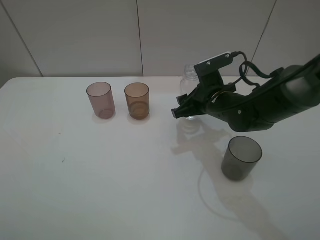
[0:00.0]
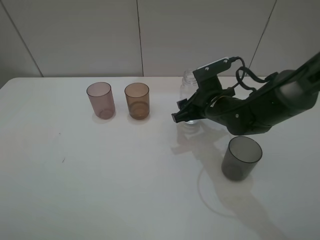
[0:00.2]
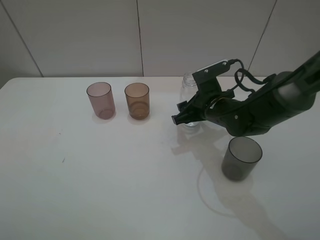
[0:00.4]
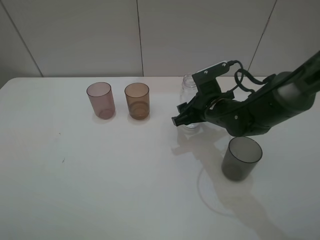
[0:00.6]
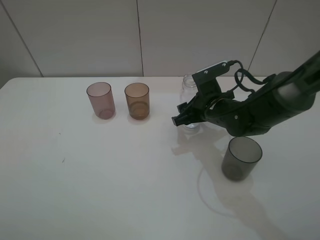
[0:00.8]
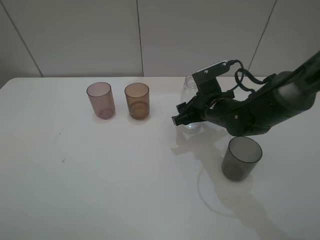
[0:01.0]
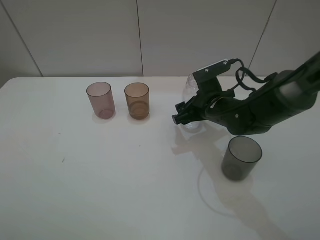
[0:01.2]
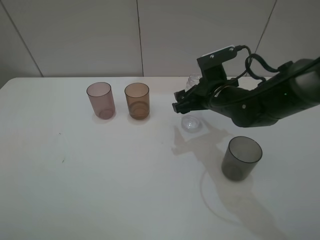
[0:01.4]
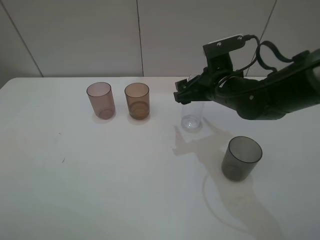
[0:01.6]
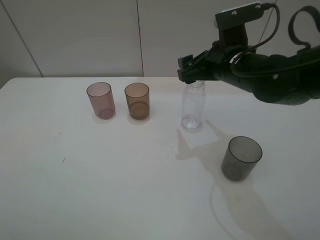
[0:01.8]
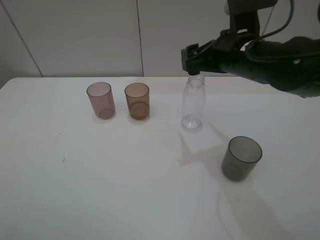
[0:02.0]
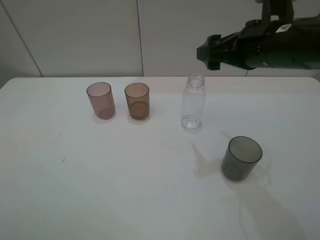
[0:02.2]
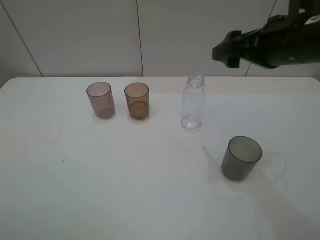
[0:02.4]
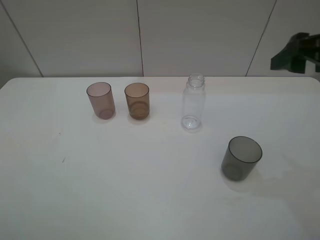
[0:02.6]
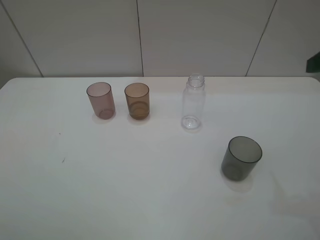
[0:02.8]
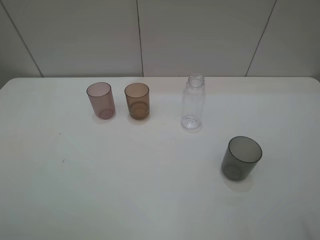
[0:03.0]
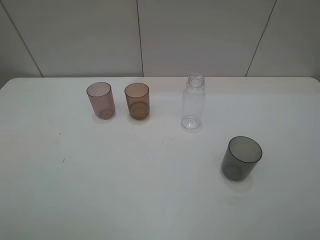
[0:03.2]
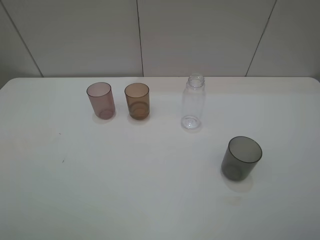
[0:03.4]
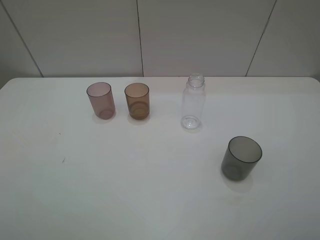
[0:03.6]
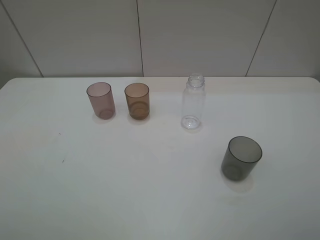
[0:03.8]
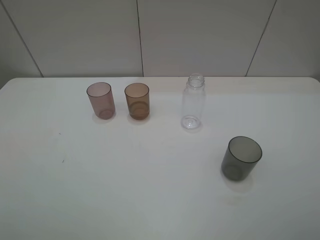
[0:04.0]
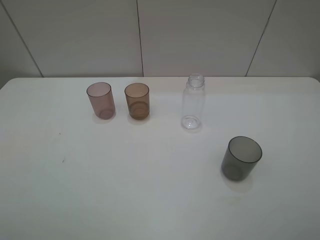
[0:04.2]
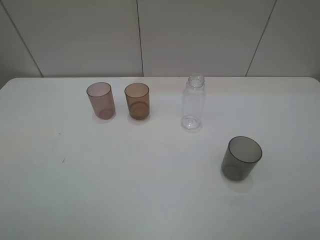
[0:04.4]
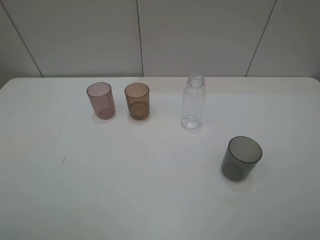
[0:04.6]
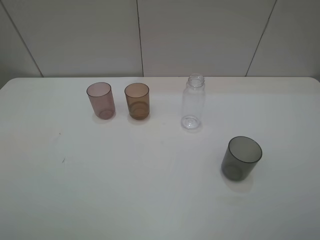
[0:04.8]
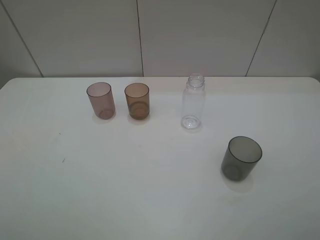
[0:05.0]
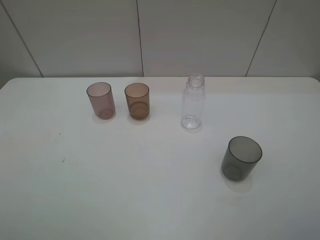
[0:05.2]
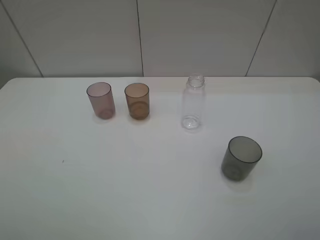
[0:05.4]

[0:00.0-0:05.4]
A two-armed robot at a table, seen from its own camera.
Task of the whole recording: pick up the bottle filled with water and pour water into the middle cup of the three cups.
0:00.0 to 0:01.4: The right gripper opens up.
0:01.4 to 0:02.8: The right gripper goes some 30 cm upward, to the right and backward.
0:04.0 to 0:05.4: The two grippers keep their place.

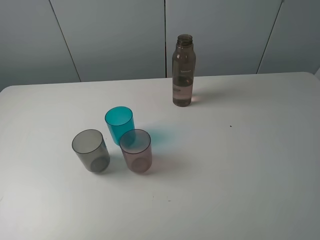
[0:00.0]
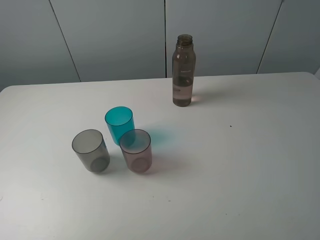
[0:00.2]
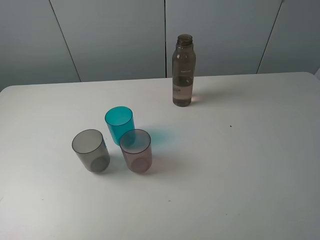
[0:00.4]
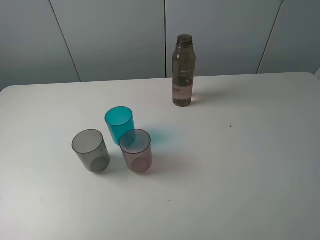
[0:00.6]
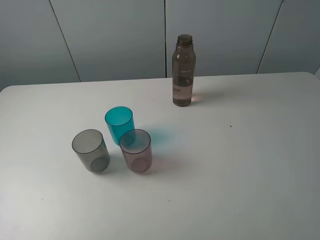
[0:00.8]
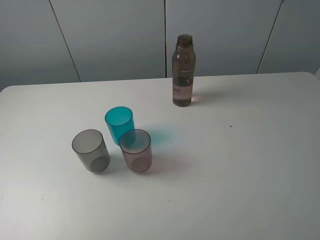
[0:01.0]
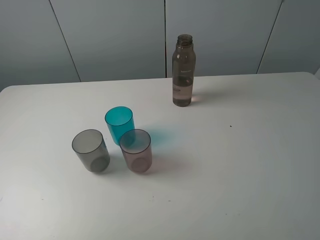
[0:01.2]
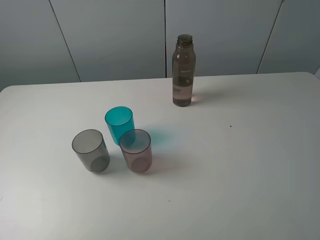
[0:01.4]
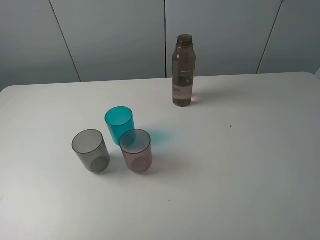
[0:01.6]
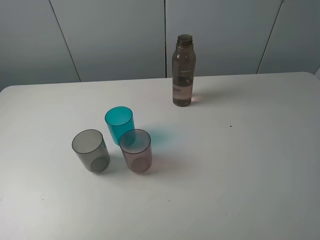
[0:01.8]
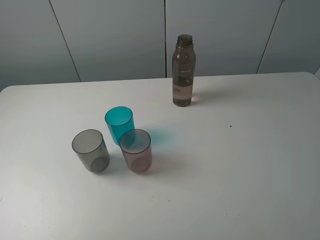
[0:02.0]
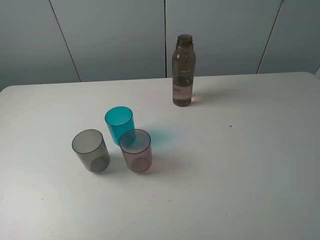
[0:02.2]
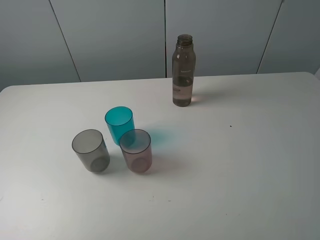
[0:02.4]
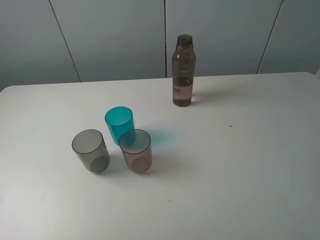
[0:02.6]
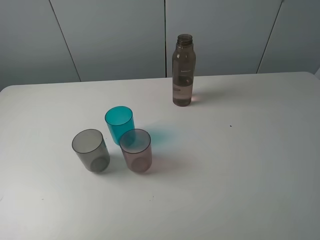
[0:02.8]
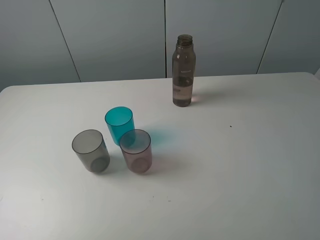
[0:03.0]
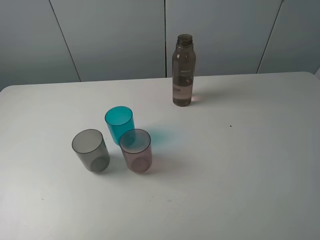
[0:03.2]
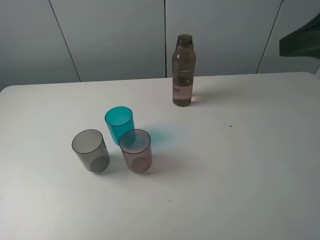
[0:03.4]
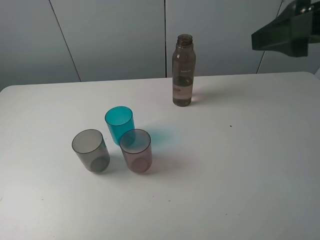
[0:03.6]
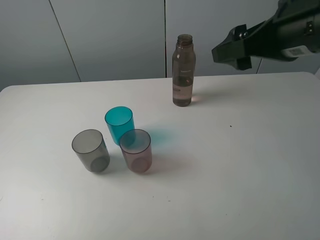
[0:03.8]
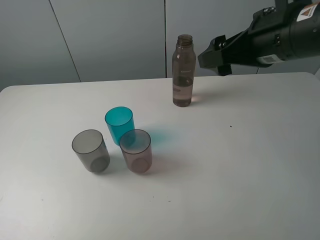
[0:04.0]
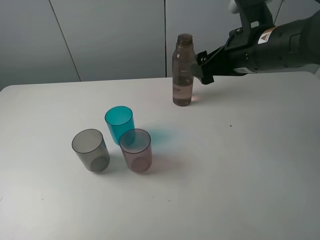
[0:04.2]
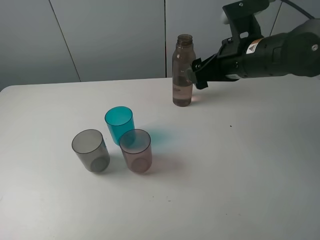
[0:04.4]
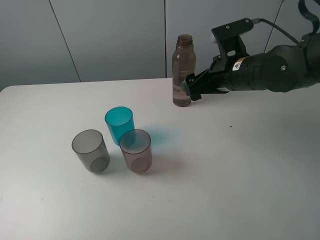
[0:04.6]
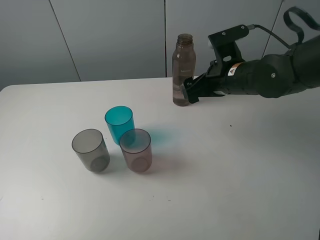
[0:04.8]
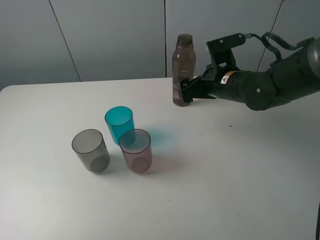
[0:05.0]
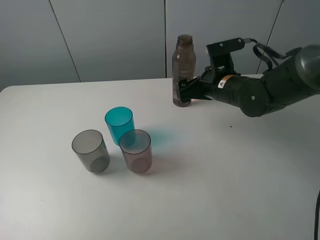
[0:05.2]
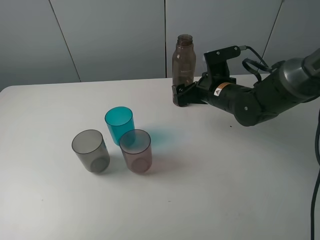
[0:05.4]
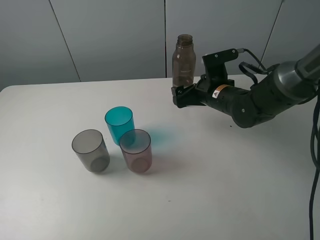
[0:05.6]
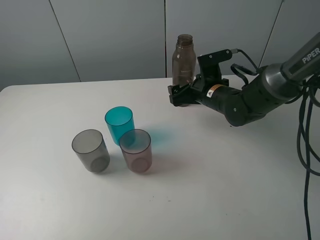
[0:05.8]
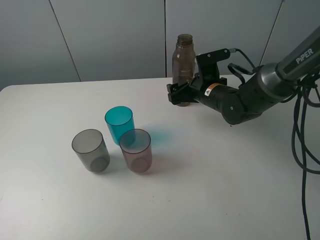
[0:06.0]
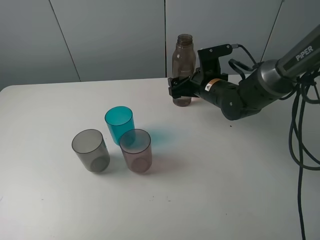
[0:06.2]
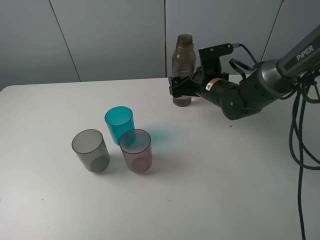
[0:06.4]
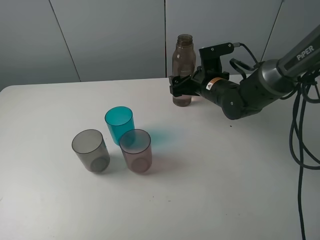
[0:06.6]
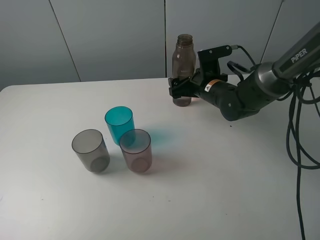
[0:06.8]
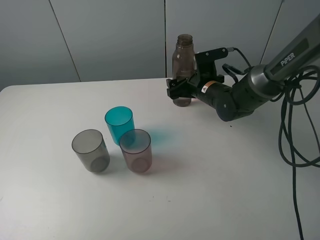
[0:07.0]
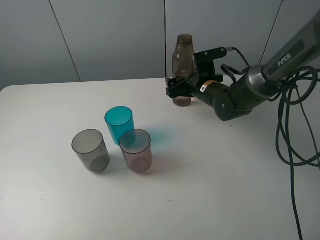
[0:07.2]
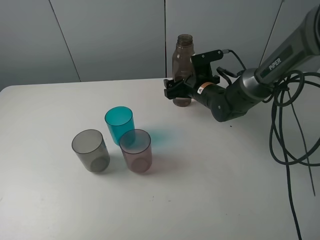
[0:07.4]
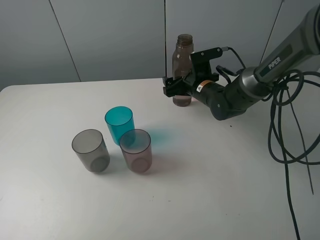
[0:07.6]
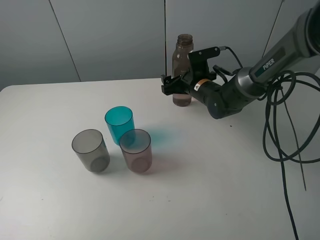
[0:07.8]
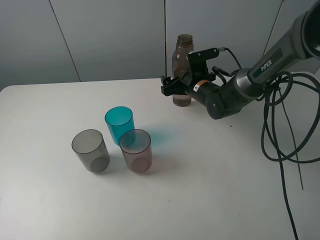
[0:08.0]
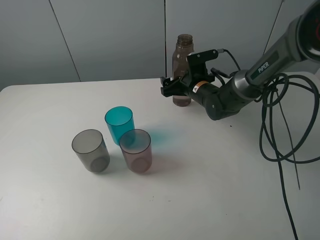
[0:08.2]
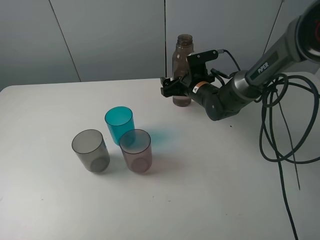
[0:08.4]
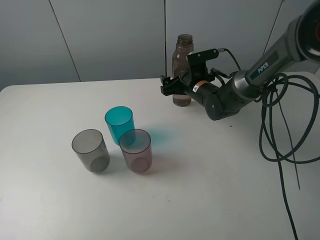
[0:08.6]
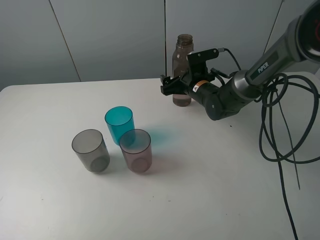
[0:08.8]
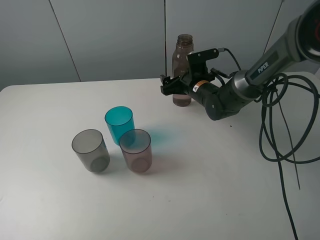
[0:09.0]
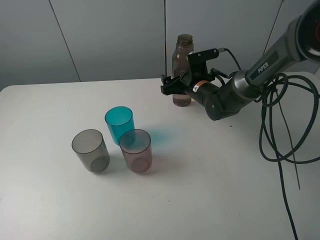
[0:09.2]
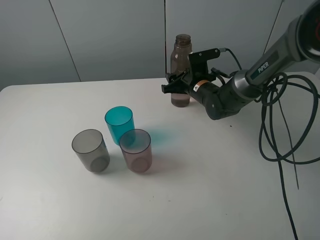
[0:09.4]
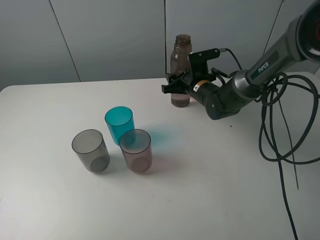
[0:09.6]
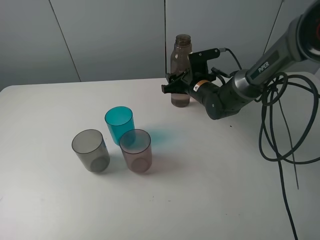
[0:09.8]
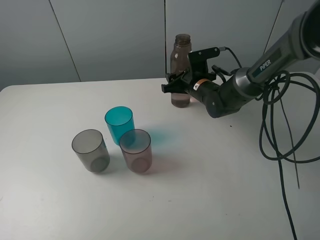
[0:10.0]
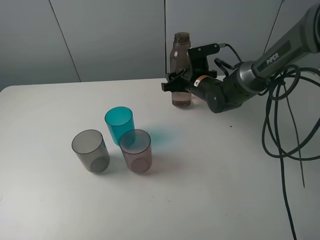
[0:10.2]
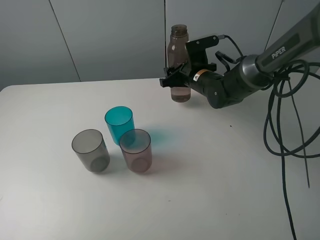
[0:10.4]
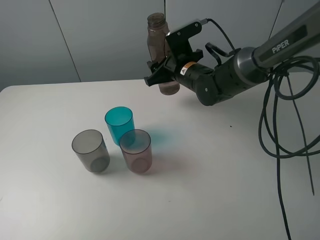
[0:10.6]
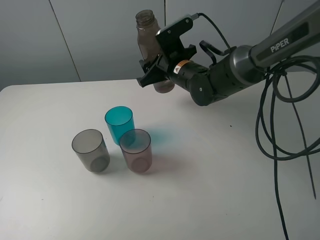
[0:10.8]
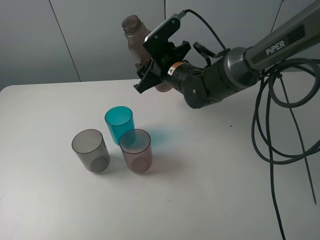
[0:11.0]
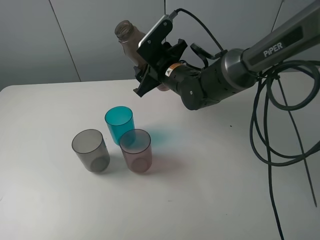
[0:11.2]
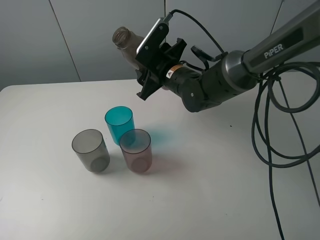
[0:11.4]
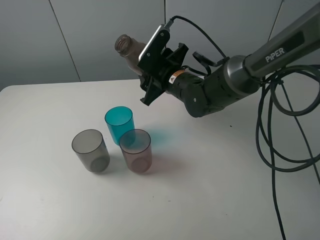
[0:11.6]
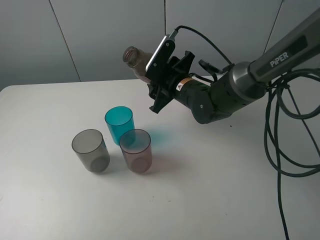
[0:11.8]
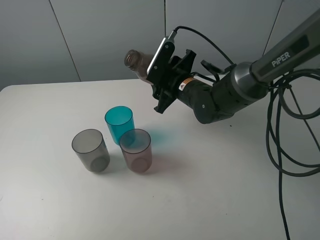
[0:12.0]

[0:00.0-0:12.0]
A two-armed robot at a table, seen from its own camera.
Task of the whole recording: pick up the bottle filled with water and pour water into the middle cup of the three cups.
Step, 0:00.0 to 0:09.4: Grasp the brown bottle with the right gripper.
0:00.0 to 0:01.6: The two grippers keep their place.
0:03.0 to 0:04.4: The right gripper moves forward, downward and to the left, roughly 25 cm.
0:04.4 to 0:06.0: The right gripper is displaced downward and forward by roughly 15 cm.
0:06.0 to 0:09.0: There are only small adjustments of the grippers.
0:09.0 to 0:10.4: The right gripper closes up.
0:10.4 to 0:12.0: The right gripper is displaced backward by approximately 5 cm.

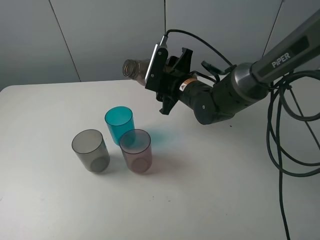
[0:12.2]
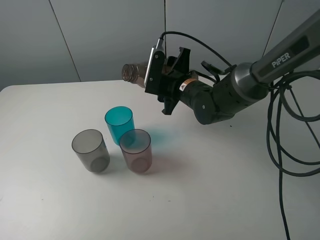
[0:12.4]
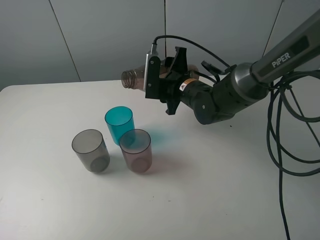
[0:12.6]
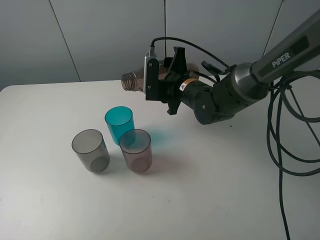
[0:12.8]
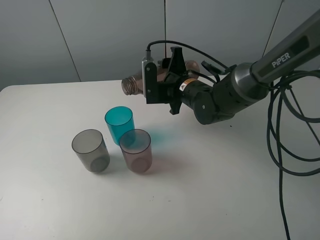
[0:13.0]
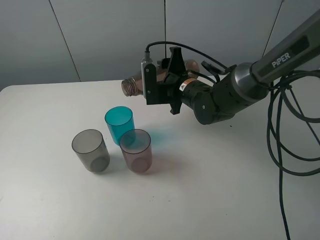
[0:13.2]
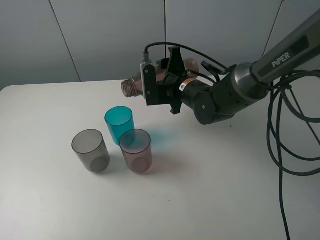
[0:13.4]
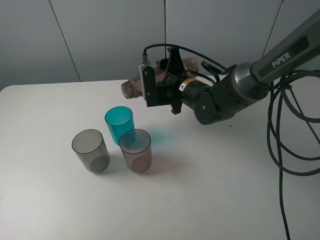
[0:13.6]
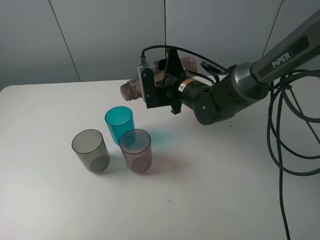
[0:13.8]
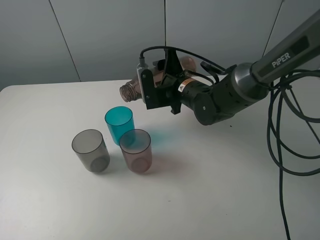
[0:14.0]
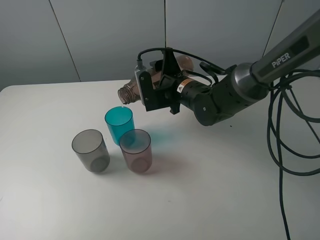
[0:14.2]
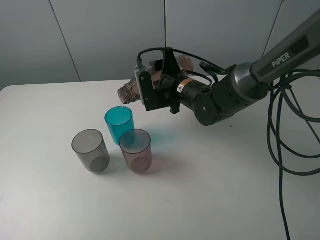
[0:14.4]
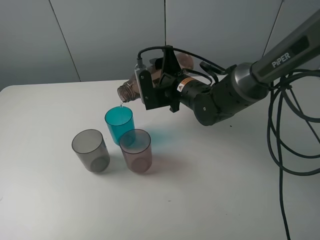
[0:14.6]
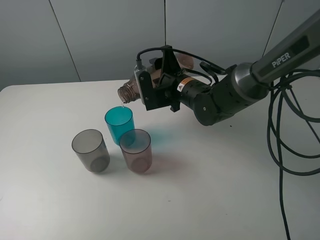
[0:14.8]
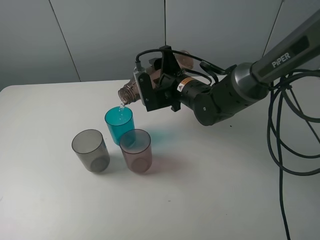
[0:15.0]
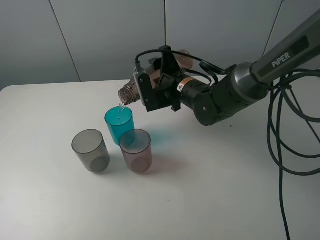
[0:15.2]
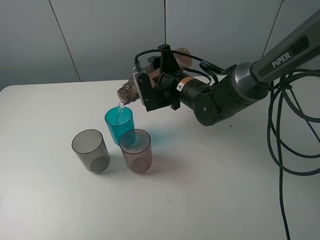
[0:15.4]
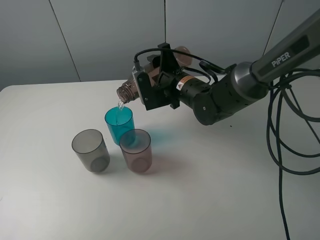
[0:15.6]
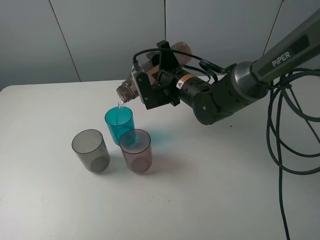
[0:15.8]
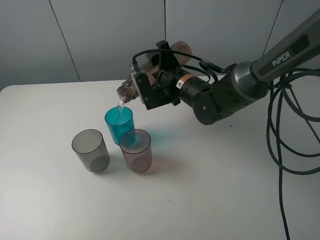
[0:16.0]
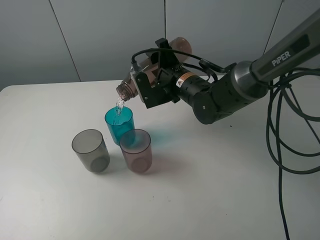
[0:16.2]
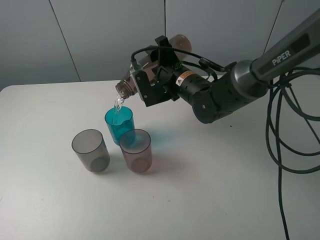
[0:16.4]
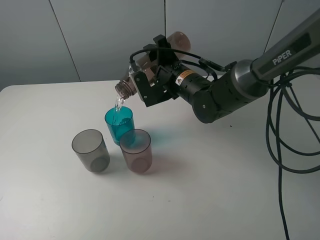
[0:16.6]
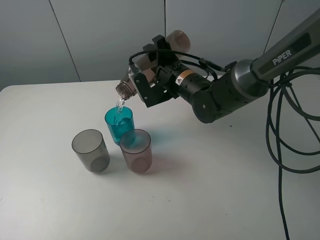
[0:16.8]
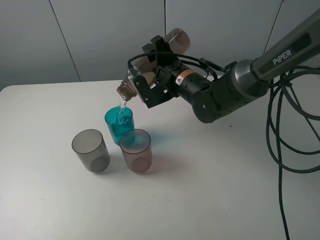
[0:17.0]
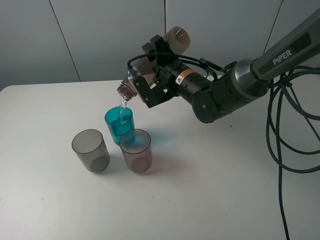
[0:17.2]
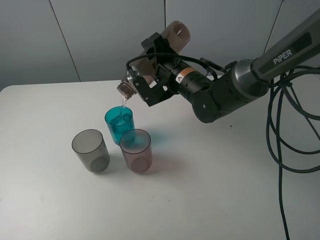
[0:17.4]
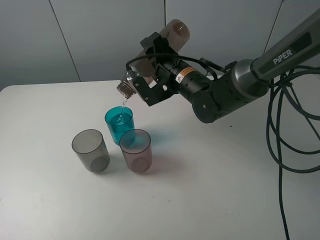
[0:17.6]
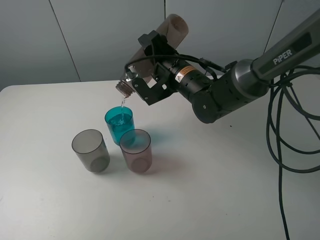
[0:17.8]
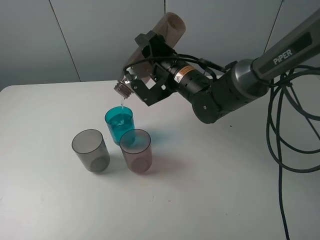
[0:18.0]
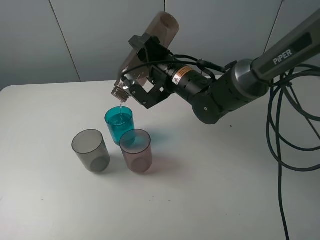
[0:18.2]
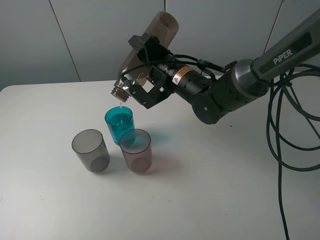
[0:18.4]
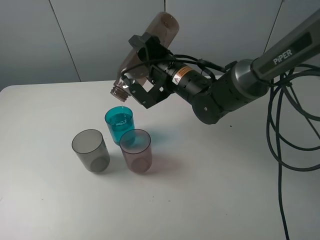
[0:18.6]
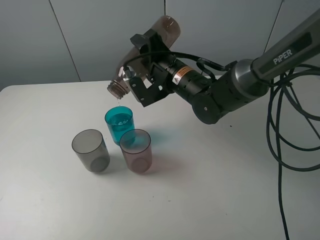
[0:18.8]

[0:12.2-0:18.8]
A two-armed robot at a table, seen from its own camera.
Task of the whole recording: pick up the bottle filled with water and pour water into the middle cup of the three cups.
Step, 0:12.2 to 0:14.6: Pour water from transparent bottle to blue cup with the right gripper.
0:13.8 to 0:15.4: There are only small adjustments of the grippers.
0:15.4 to 0:17.2: The grippers stay close to where they were, moving slightly.
0:17.2 to 0:18.8: There are only small adjustments of the grippers.
